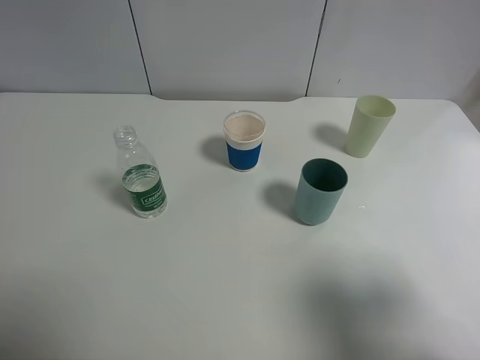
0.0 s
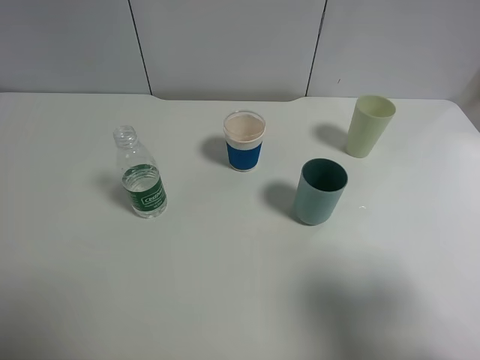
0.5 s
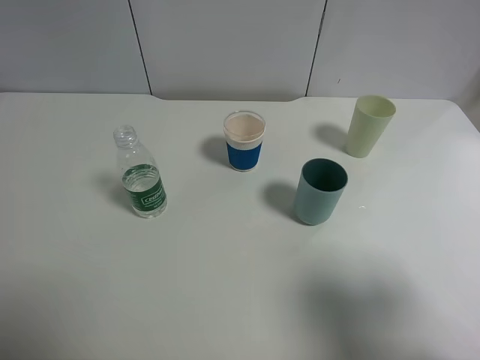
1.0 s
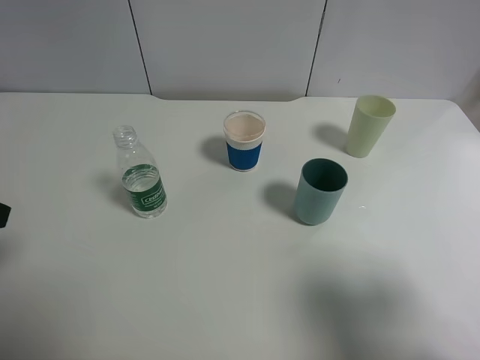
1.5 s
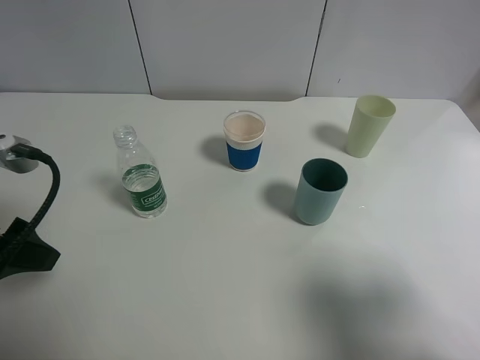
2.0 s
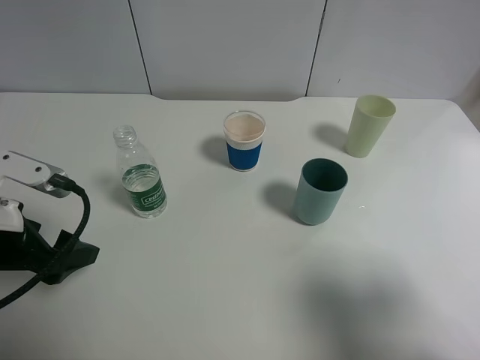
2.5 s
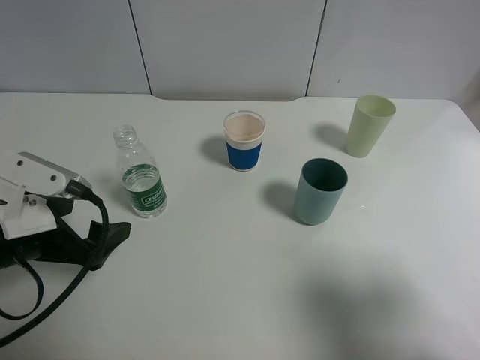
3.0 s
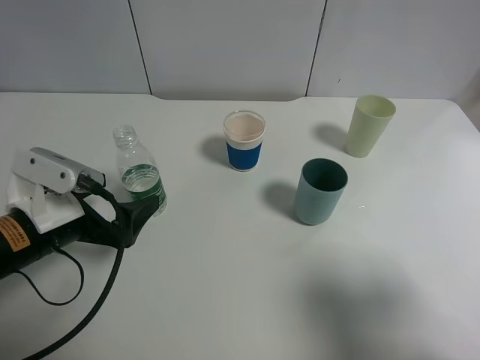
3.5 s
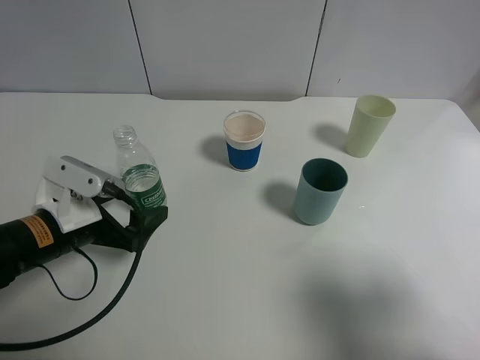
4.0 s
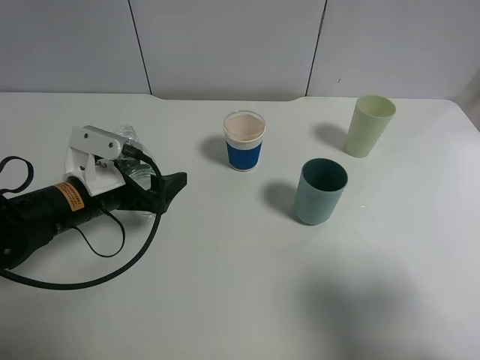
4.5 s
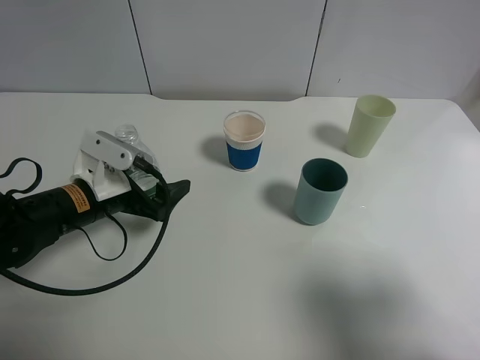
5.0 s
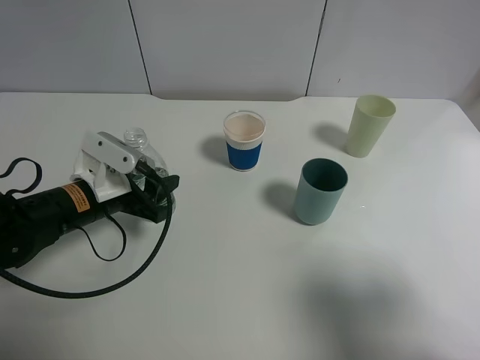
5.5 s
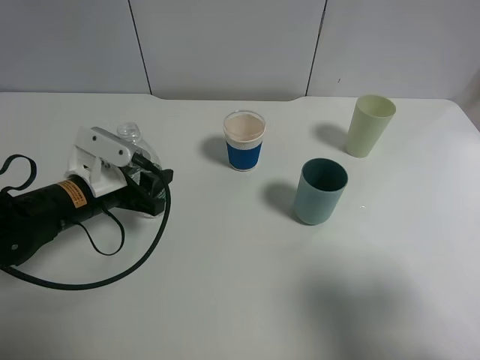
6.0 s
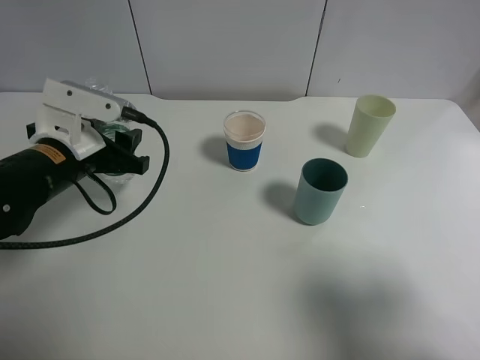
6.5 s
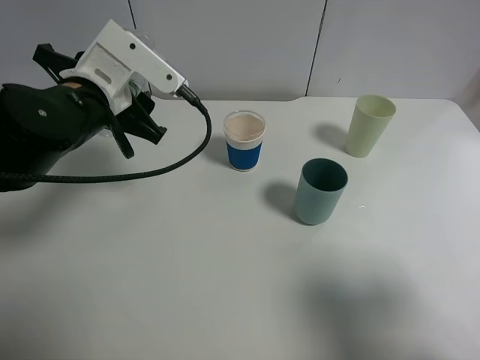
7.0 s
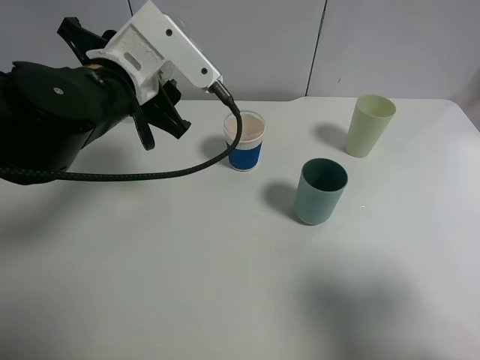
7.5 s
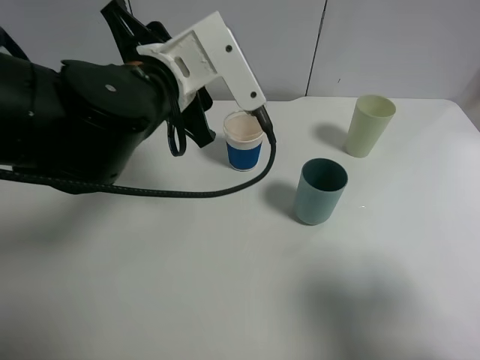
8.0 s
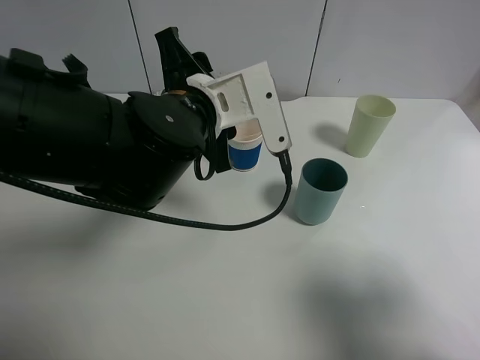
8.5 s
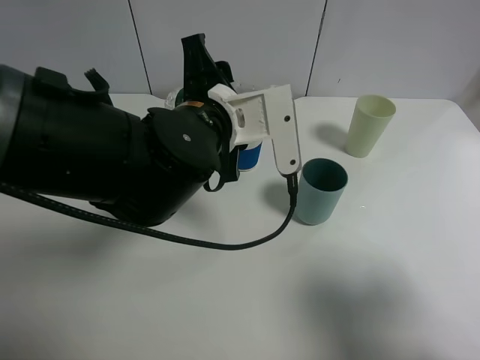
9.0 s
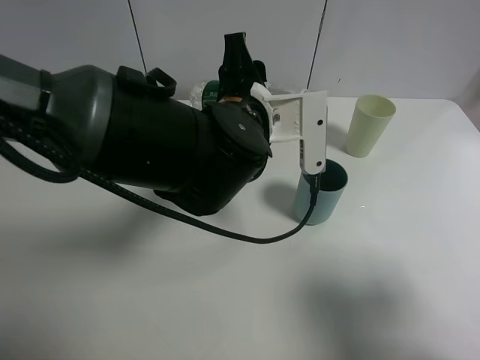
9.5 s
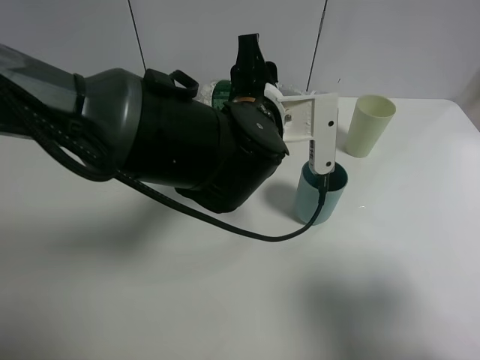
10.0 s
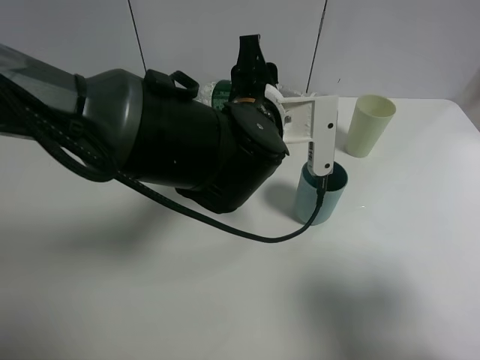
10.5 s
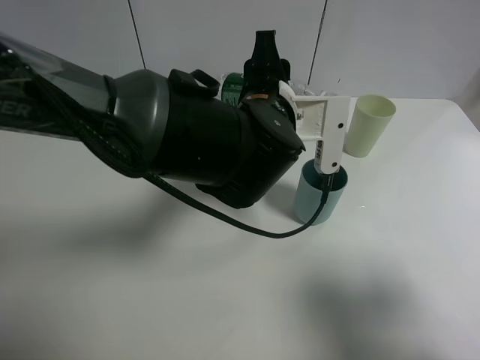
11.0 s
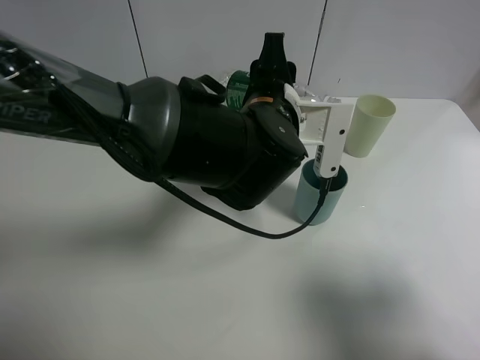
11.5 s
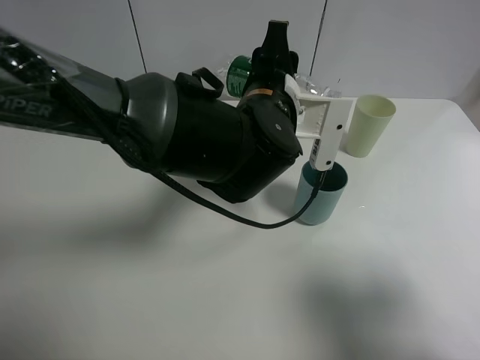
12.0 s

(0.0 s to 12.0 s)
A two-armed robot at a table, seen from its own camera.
Task of the whole recording: use a clamp to hold the bottle of the drink, pour the beverage into a random cup, then clamp the cup containing the drink and pour the drink into another random cup.
Step, 0.0 s - 6.5 s: Pick up the water bottle with left gripper.
0.0 s - 2.0 s: The left gripper goes roughly 15 cm forward.
2.0 s - 4.0 s: The left gripper shifts approximately 15 cm downward and to the right.
4.0 s - 6.0 s: The left gripper is displaced forward by about 5 cm, and closes.
6.0 s - 8.0 s: The left gripper is displaced upward and to the right by some 20 cm.
8.0 s - 10.0 s: The left gripper goes some 10 cm to the right.
10.0 s - 12.0 s: The grippers make only small movements.

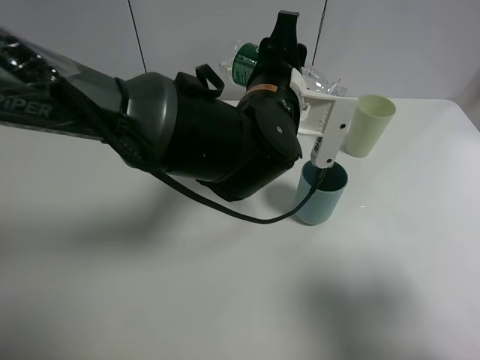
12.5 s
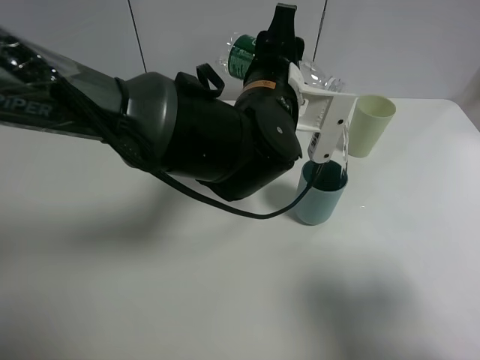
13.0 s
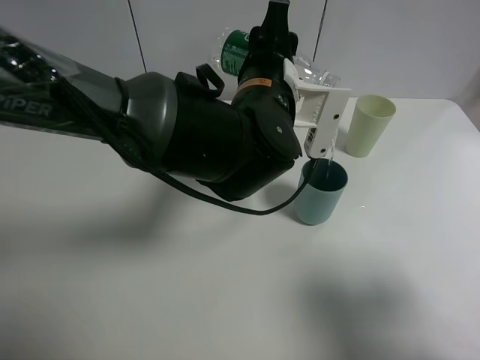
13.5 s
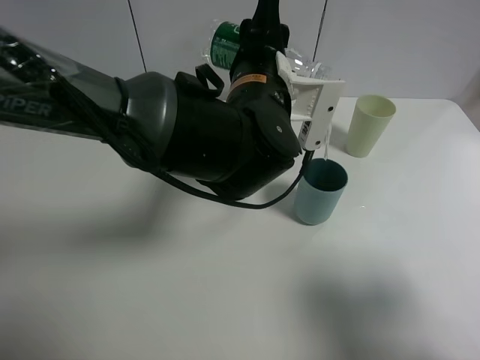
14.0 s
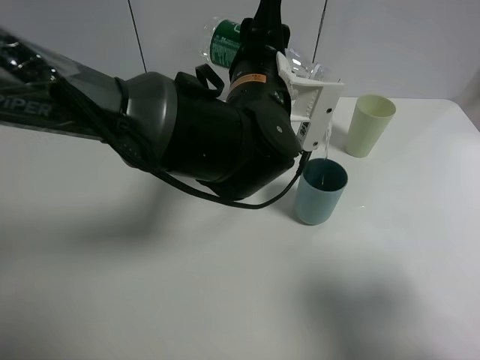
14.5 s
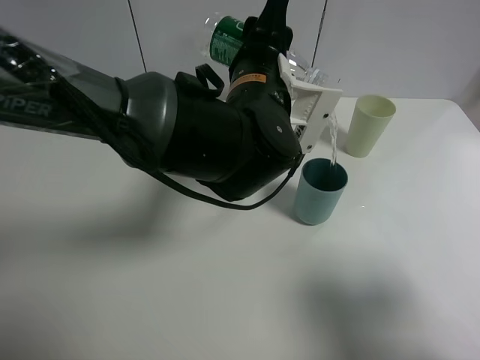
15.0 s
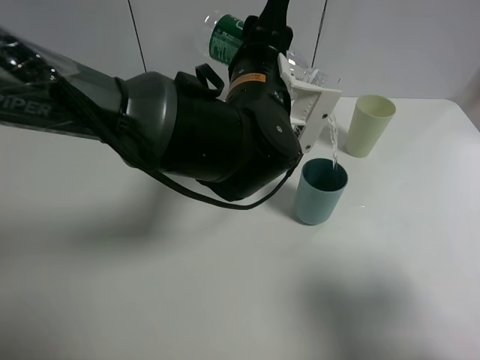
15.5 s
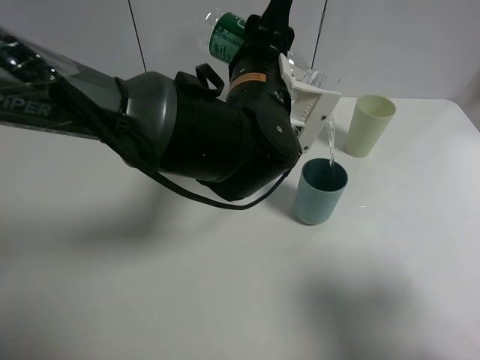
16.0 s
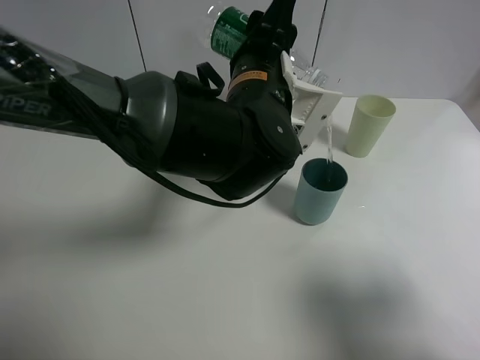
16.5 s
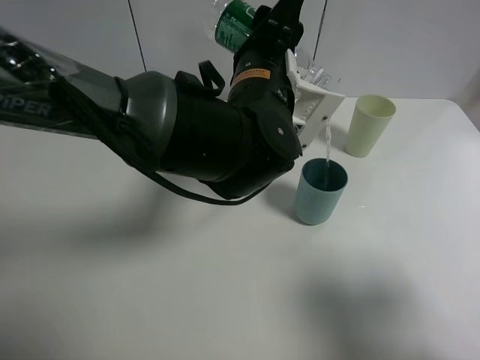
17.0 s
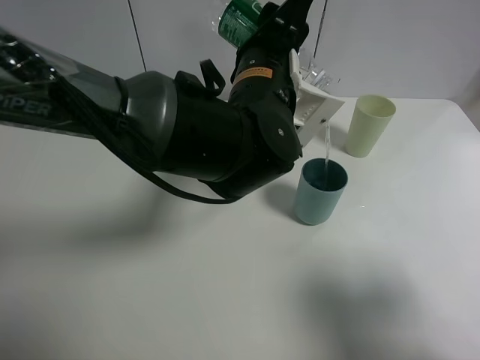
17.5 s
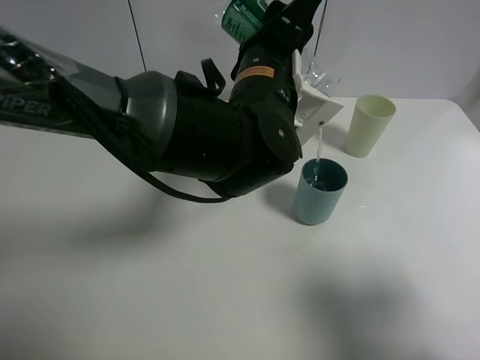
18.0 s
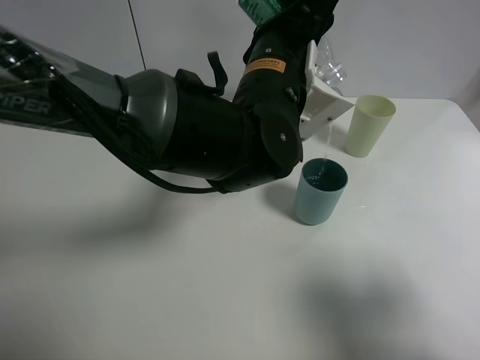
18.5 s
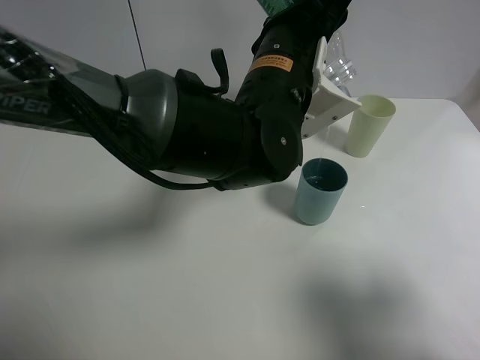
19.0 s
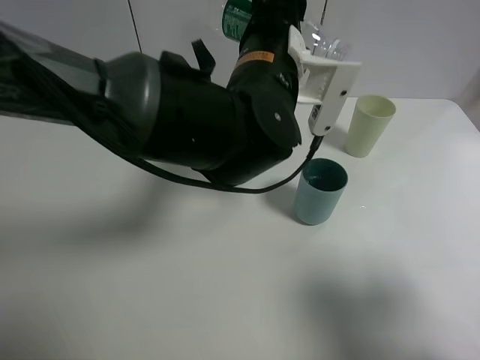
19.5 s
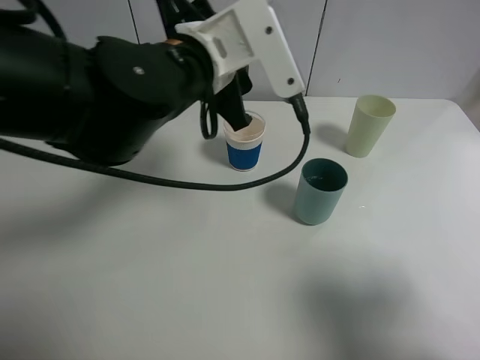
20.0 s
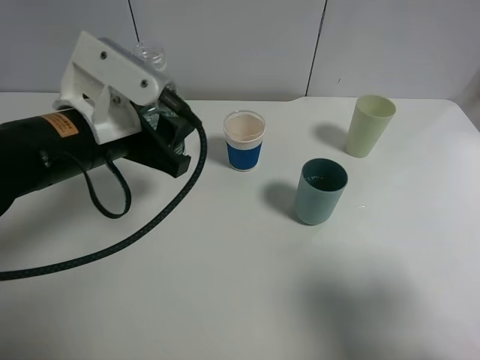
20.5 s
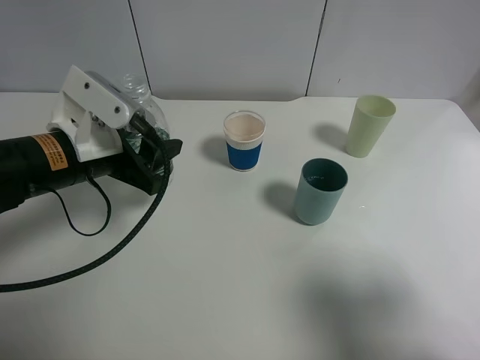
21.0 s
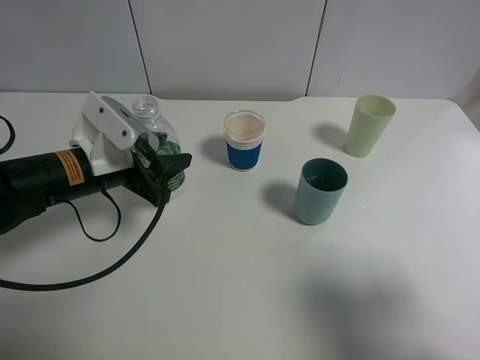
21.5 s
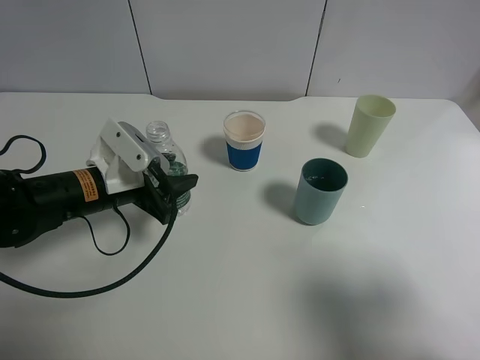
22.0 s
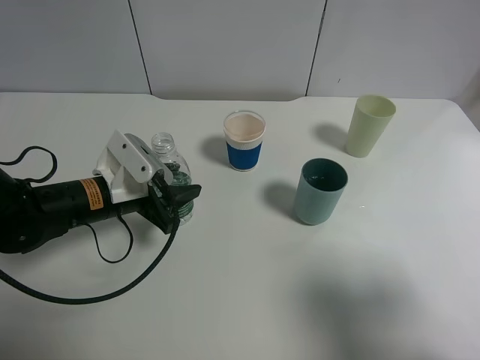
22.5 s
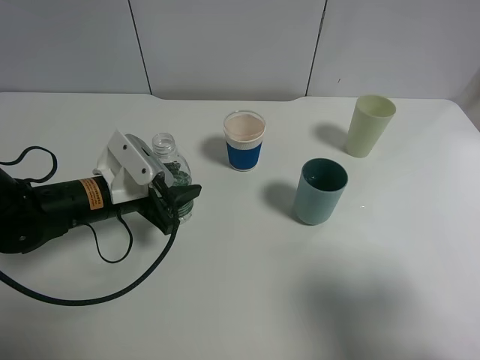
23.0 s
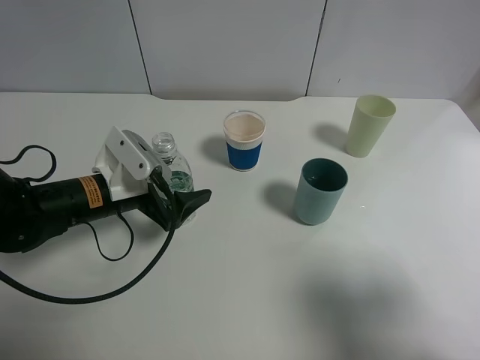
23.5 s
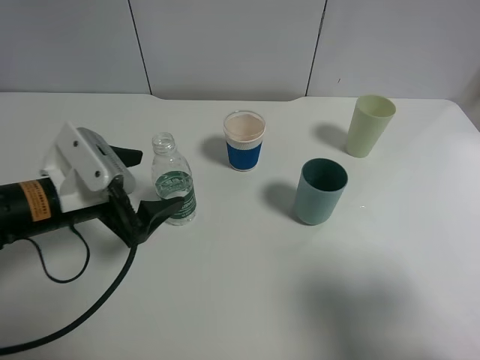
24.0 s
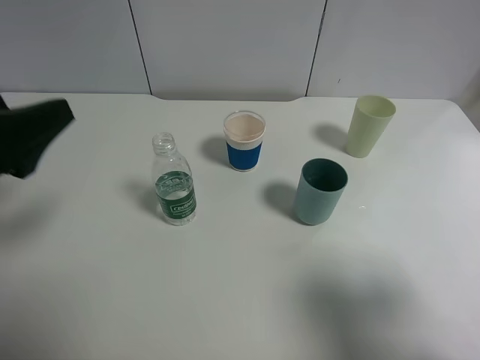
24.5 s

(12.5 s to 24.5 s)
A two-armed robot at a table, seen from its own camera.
Task of the whole recording: use a clamp to hold the bottle of the drink, pour the beverage into a random cup, then clamp the cup containing the drink and pour the drink into another random cup.
Step, 12.5 s - 19.5 s: Pour the water into the blue plastic cup with left gripper.
Step, 20.0 s - 23.5 s: Place the water bottle on the table with left gripper.
12.5 s - 16.5 s: The grippers stay close to where they were, moving slightly.
16.5 s - 18.5 s: The grippers make only small movements.
18.5 s - 20.5 s: The left gripper travels to the left by some 15 cm.
20.5 s - 22.5 s: The left gripper travels downward by about 15 cm.
22.5 s - 24.5 s: The left gripper goes approximately 15 cm upward, backward and to the left, and opens up.

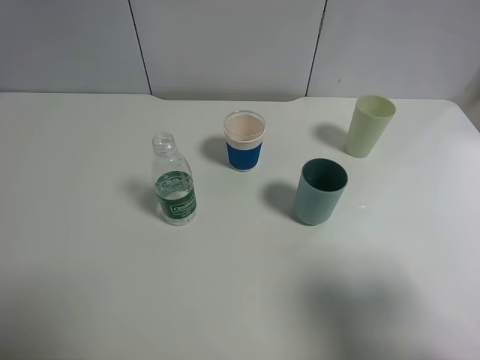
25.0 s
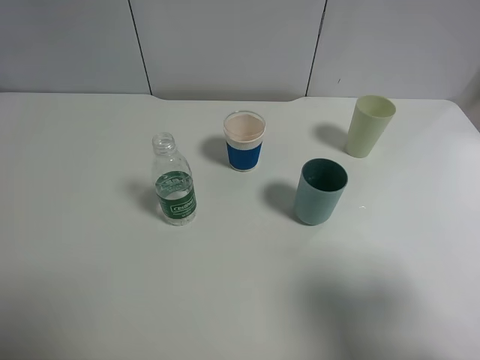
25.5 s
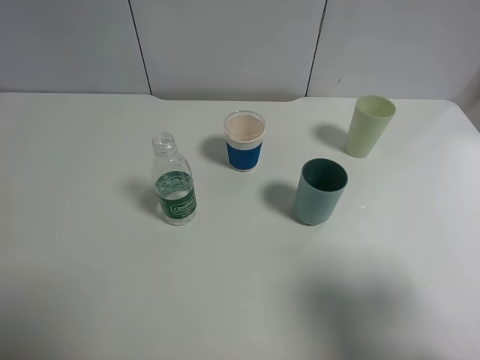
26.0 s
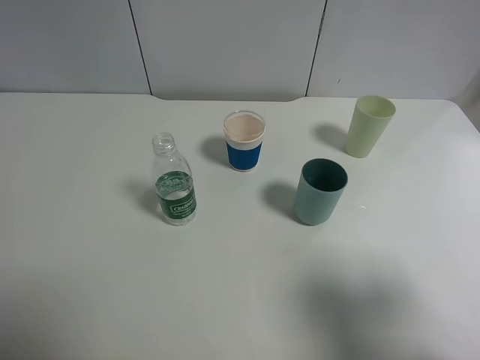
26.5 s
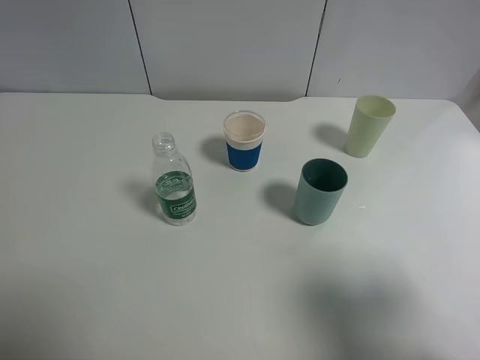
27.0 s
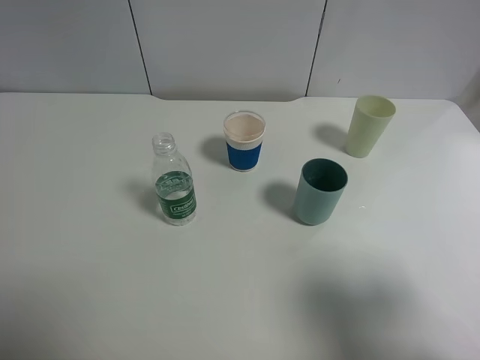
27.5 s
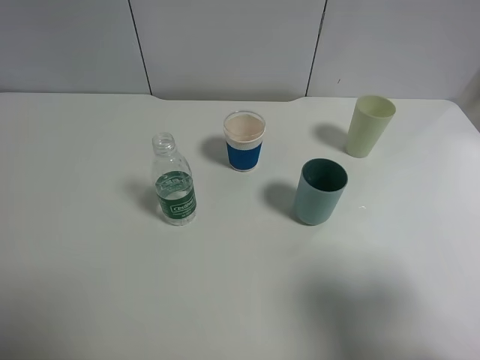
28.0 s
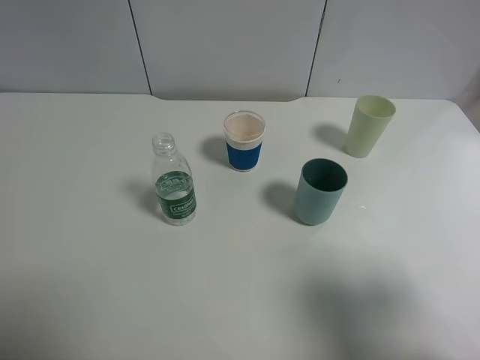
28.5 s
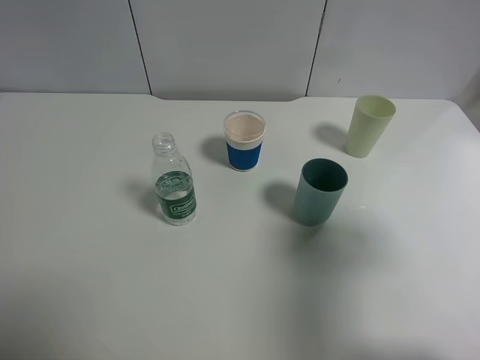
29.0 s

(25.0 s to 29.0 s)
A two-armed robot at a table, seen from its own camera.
Task of the whole recording: use a clamp to hold the bottle of the drink, pour the beverage into a random cup, then clamp the cup containing the drink and pour the drink into another random cup.
27.0 s - 29.0 s: The right gripper heads forward, covering about 10 cm.
